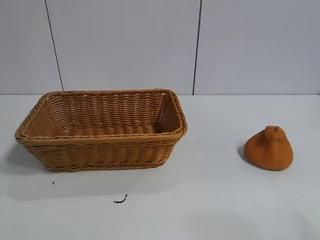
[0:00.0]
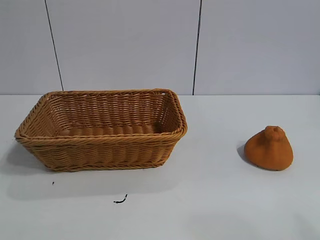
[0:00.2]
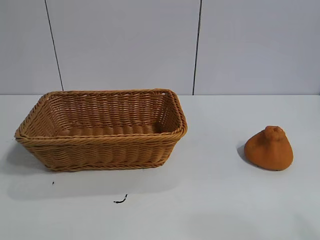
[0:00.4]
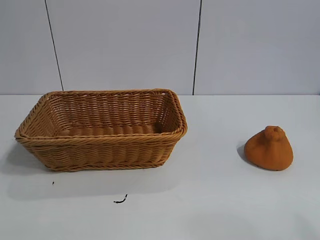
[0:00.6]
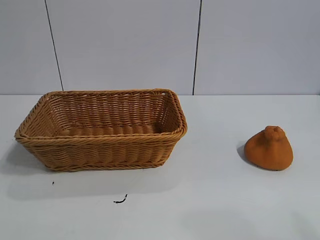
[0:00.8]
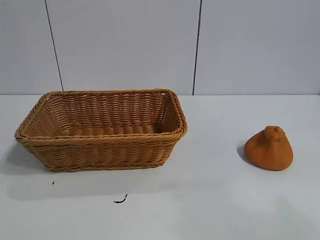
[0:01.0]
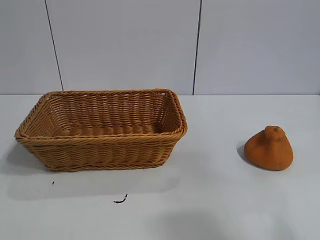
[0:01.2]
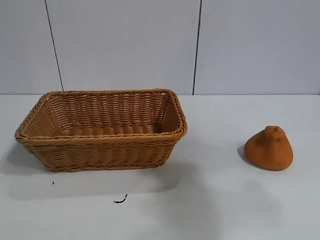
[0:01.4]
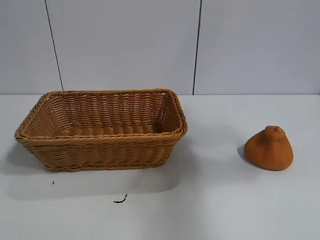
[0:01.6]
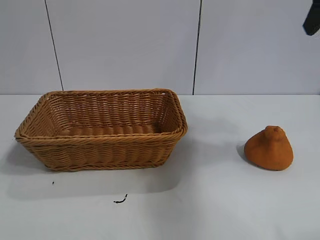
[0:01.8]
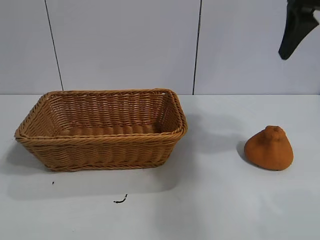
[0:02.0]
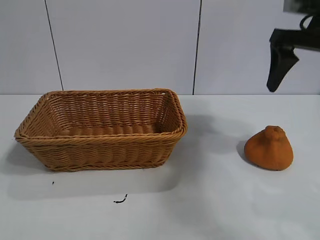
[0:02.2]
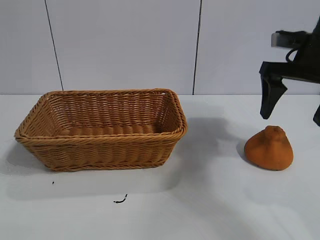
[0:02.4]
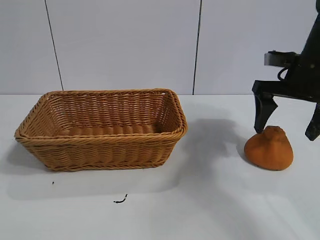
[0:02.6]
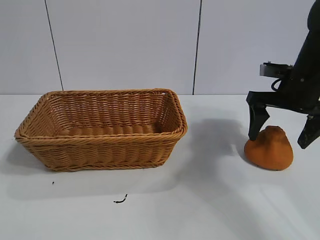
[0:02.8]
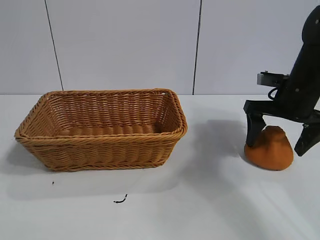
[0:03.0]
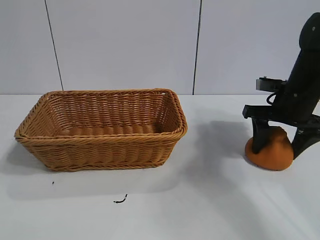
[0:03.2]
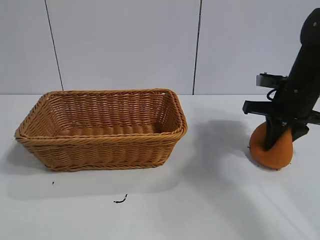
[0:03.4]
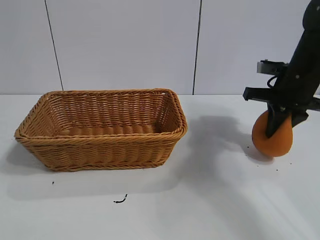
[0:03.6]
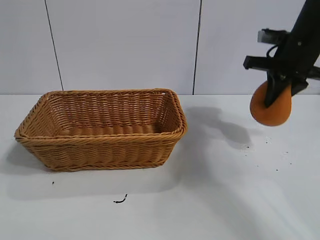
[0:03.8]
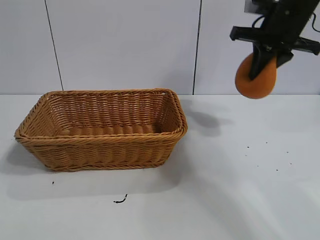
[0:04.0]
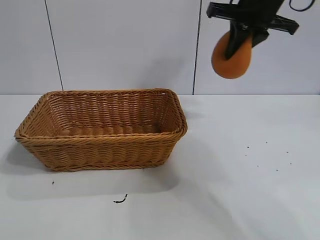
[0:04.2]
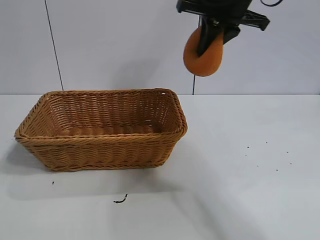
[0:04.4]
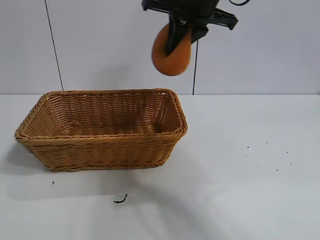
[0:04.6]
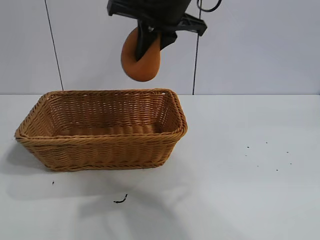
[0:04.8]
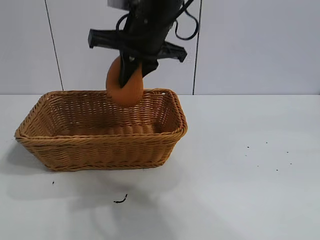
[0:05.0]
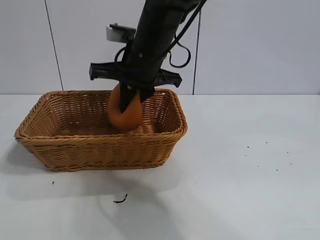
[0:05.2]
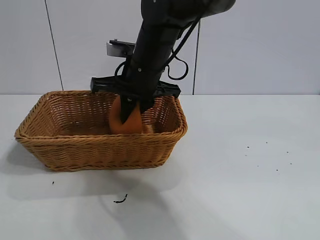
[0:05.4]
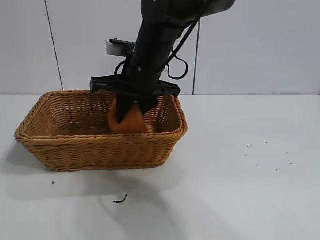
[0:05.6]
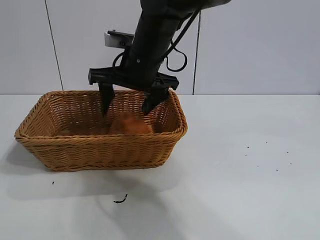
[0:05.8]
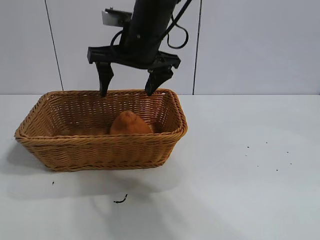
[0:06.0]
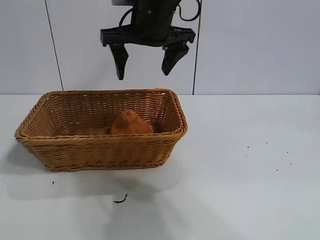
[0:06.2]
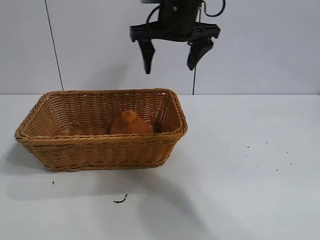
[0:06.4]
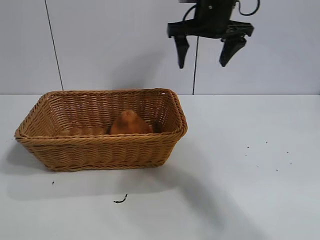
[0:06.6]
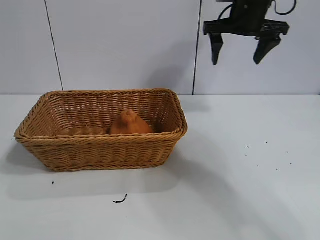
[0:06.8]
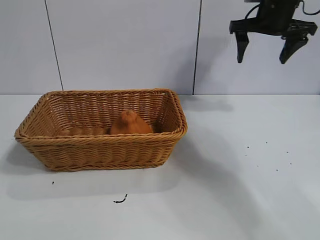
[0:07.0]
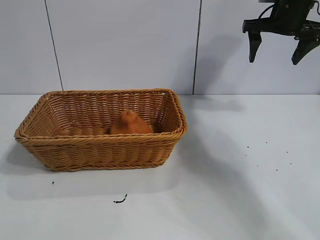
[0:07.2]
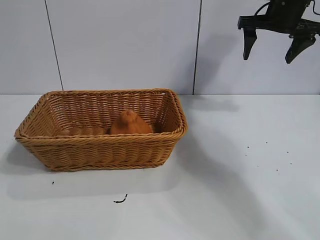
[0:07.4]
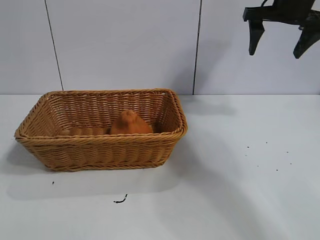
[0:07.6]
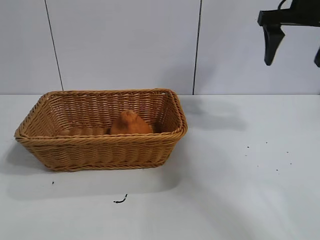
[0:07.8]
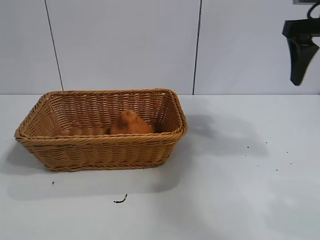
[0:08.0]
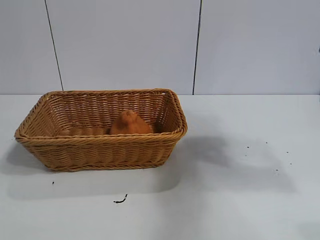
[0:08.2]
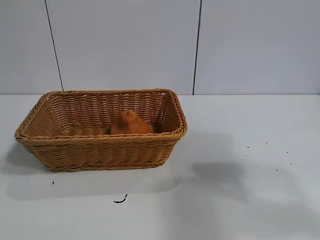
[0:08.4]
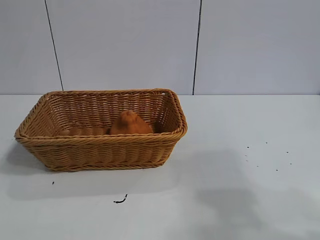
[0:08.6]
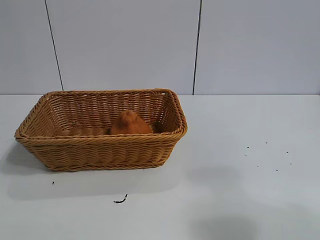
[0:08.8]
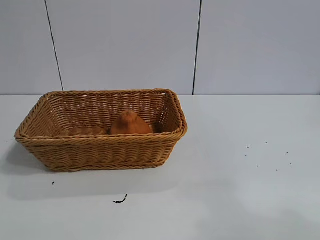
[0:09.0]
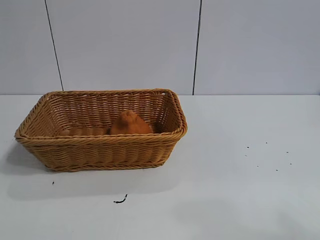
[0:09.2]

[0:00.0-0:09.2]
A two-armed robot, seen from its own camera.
Task of the whole recording: pick up the orange and put it into the basket.
Step, 0:00.6 to 0:03.2: Grasp the orange with right gripper.
Step, 0:03.4 to 0:05.8: Place the orange in the basket with right gripper.
